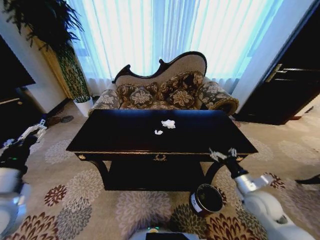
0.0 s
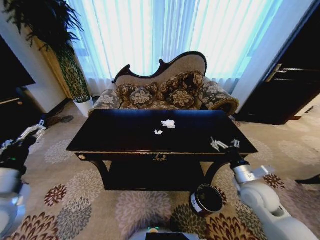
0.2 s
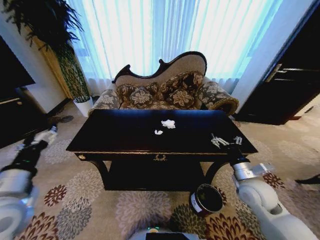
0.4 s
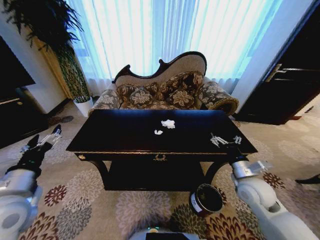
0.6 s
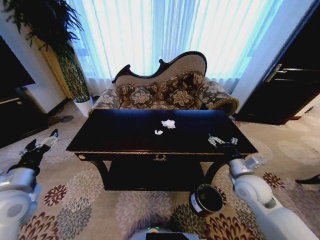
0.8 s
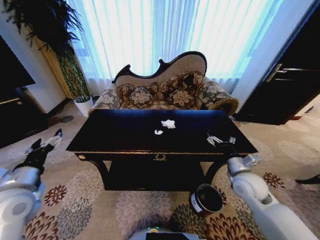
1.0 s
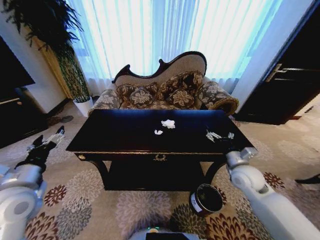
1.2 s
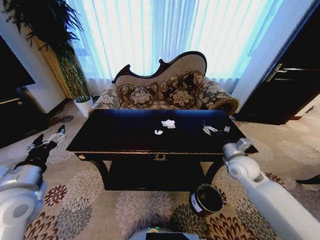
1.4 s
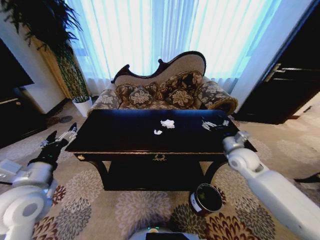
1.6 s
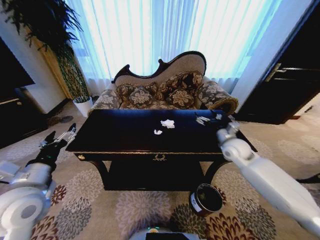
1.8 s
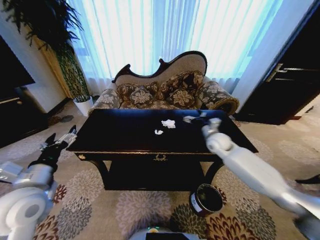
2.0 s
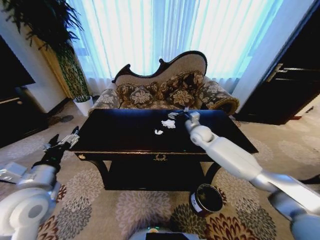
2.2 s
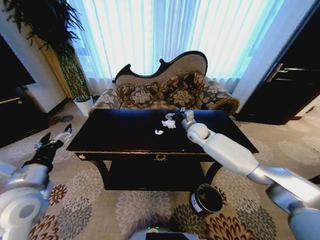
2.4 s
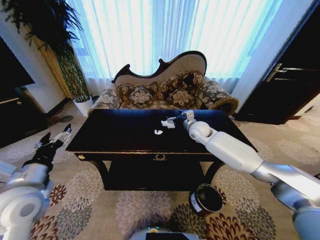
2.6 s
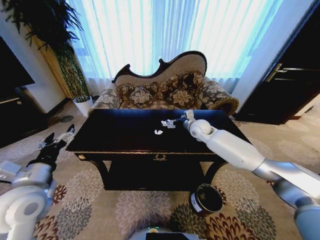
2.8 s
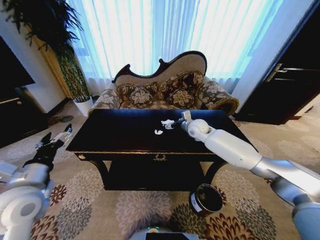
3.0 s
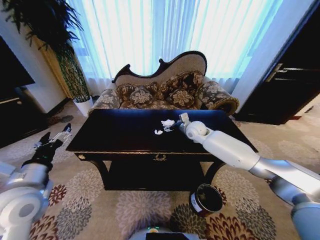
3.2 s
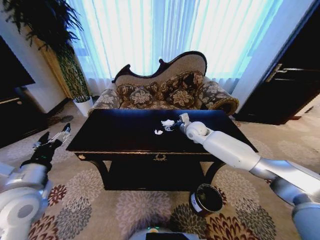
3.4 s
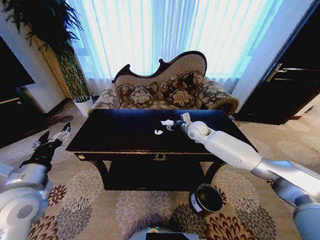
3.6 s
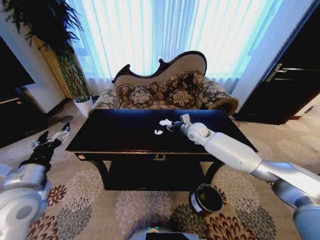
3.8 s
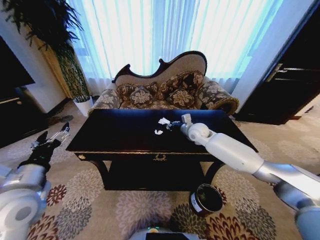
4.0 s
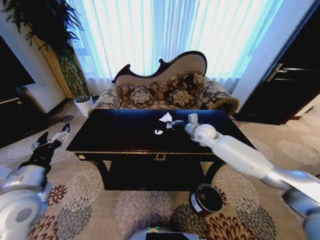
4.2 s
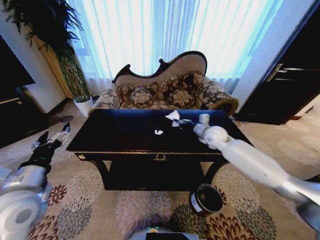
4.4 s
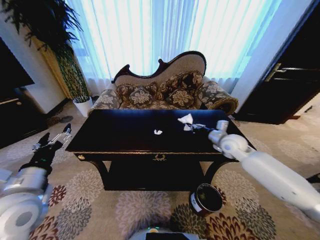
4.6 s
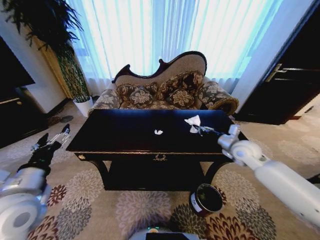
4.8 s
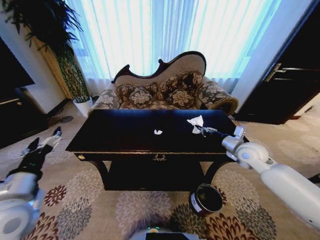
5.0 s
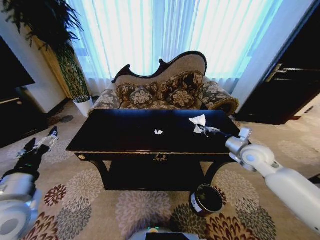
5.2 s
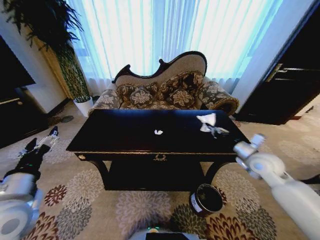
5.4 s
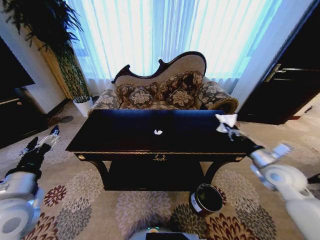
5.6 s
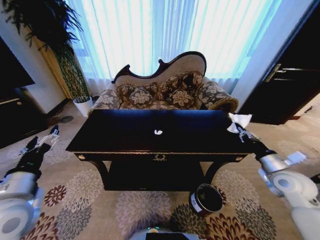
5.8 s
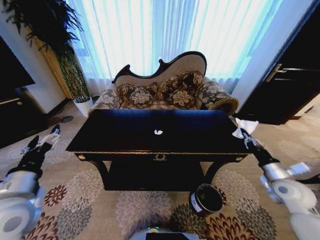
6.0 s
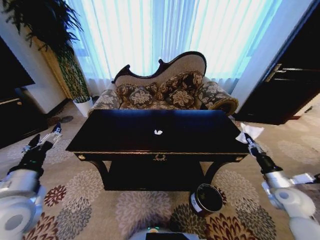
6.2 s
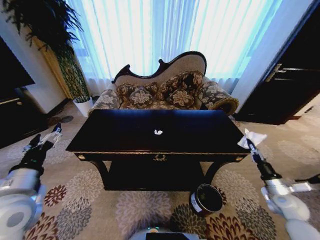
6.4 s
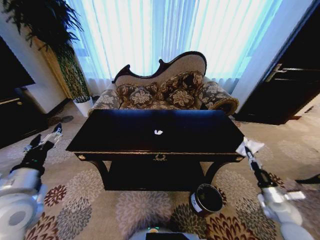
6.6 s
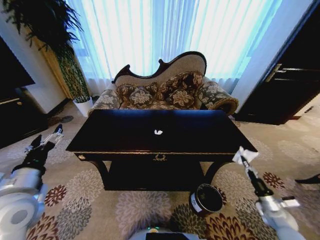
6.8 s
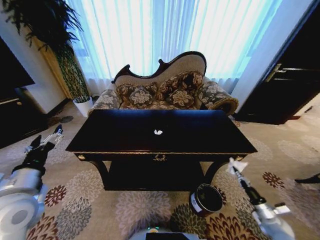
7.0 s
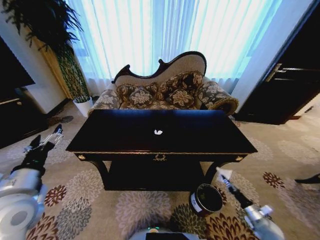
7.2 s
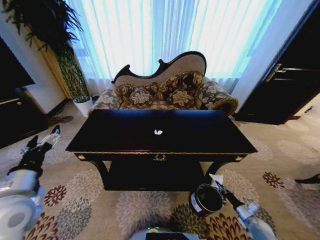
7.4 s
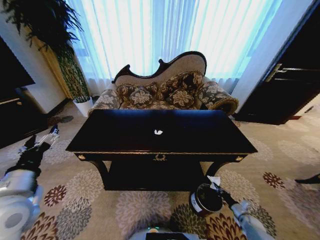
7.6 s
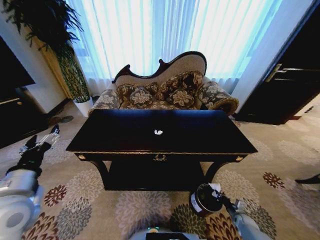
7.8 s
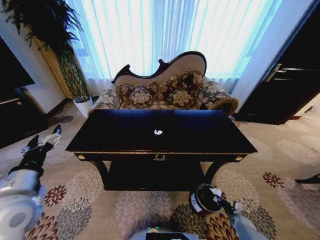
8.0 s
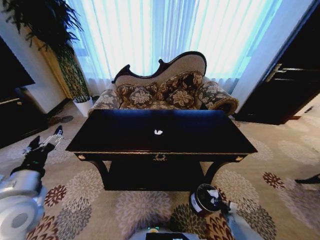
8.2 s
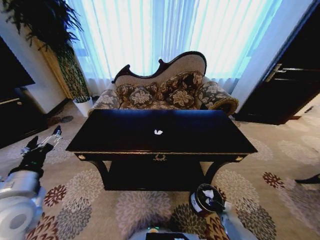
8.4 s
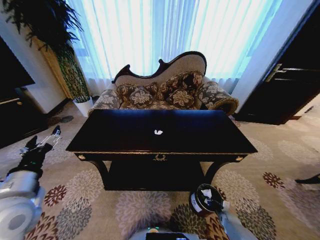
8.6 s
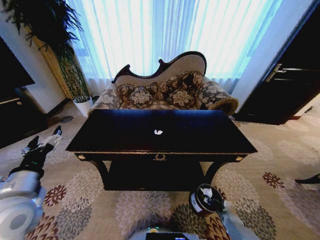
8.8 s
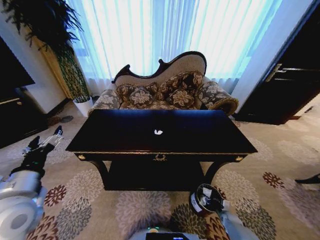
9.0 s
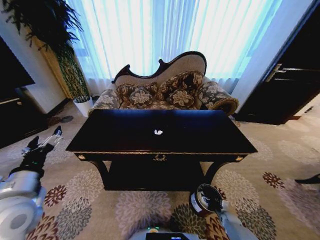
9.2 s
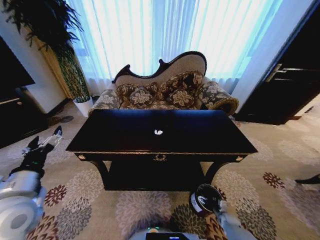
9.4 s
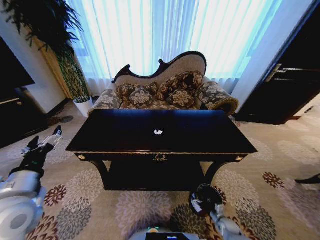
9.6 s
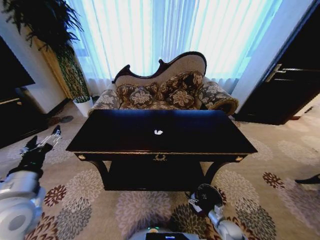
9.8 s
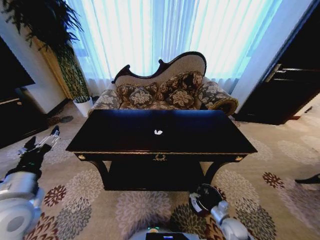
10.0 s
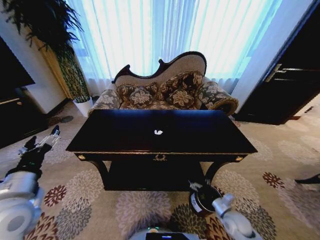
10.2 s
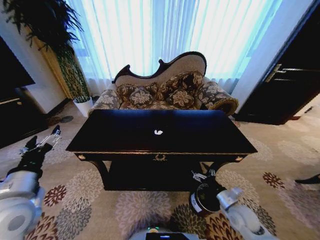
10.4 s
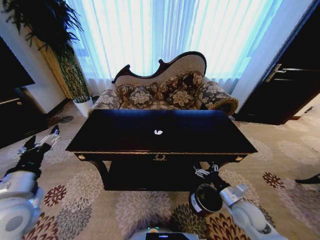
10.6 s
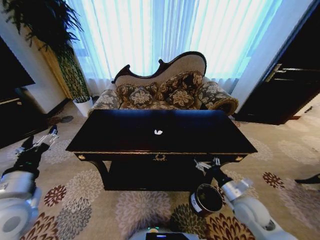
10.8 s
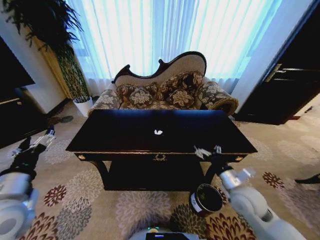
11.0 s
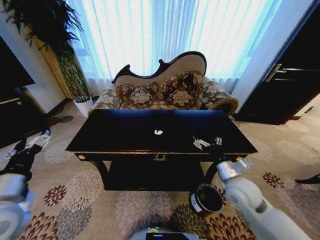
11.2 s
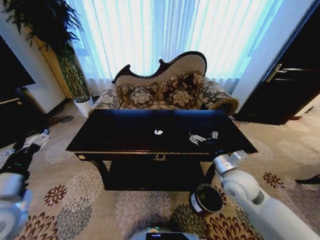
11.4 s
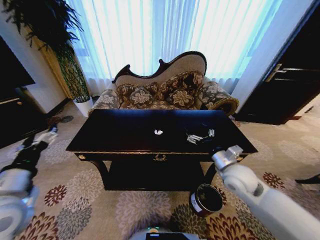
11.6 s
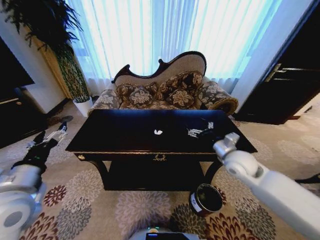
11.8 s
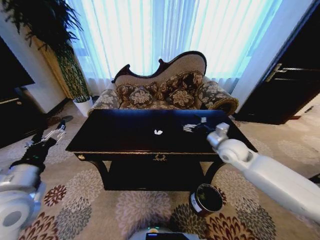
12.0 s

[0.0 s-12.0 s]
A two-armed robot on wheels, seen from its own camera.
Task of the whole recording: Move to the front of the table and place the trash on the table into the trash bin.
0.0 to 1.6 s: The right gripper heads forward and upward, covering about 15 cm, while the left gripper shifts by approximately 5 cm.
1.6 to 3.0 s: The right gripper is displaced forward and to the left by approximately 20 cm.
3.0 to 4.4 s: The right gripper goes some 10 cm to the right and backward, and closes up.
4.4 to 6.0 s: The right gripper heads backward and to the right, covering approximately 30 cm.
6.0 to 7.6 s: The right gripper heads downward, covering approximately 35 cm.
7.6 to 9.0 s: The right gripper is displaced to the left by about 5 cm, and opens its fingers.
9.0 to 10.4 s: The right gripper heads upward and to the left, covering roughly 25 cm, and opens up.
10.4 to 12.0 s: The right gripper heads upward and forward, covering about 30 cm.

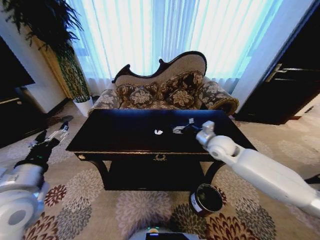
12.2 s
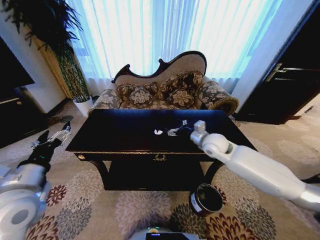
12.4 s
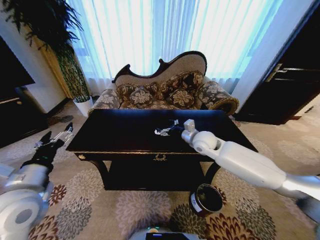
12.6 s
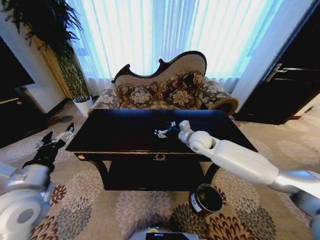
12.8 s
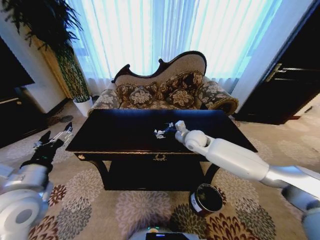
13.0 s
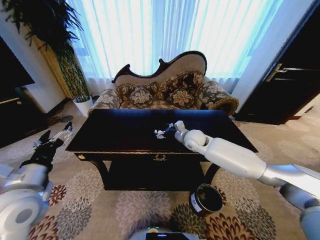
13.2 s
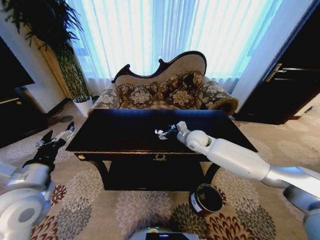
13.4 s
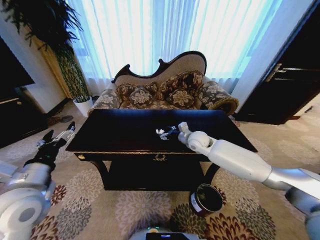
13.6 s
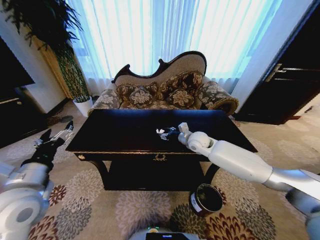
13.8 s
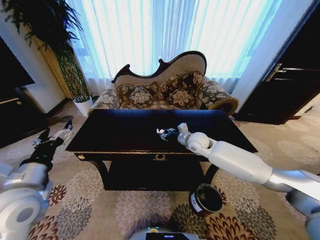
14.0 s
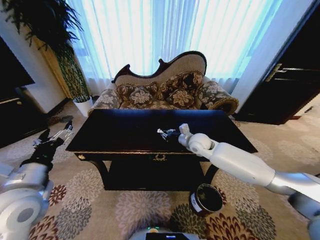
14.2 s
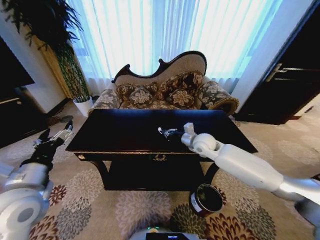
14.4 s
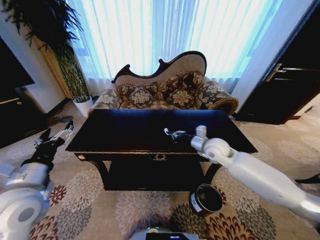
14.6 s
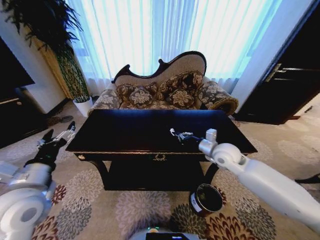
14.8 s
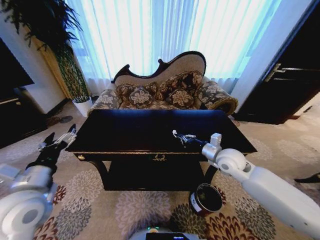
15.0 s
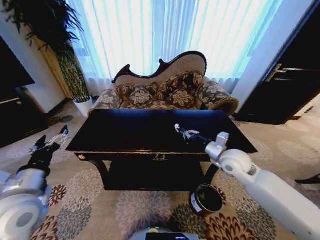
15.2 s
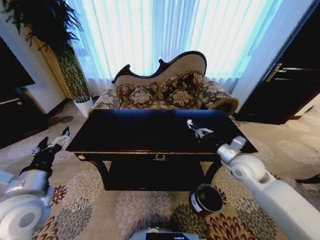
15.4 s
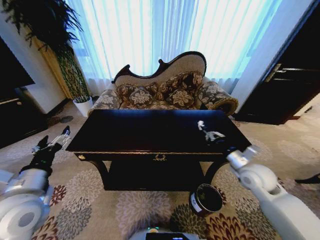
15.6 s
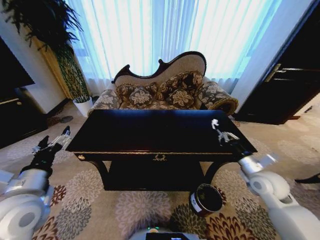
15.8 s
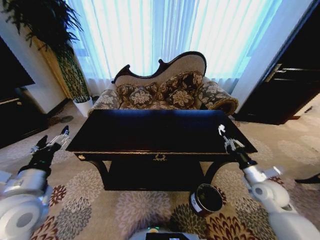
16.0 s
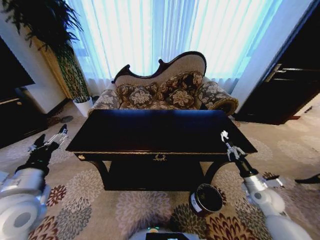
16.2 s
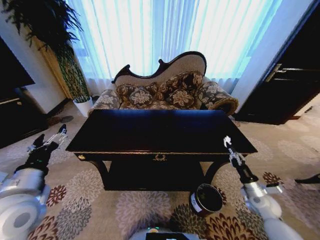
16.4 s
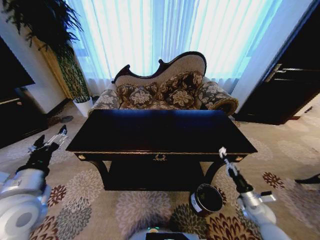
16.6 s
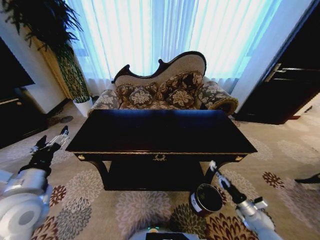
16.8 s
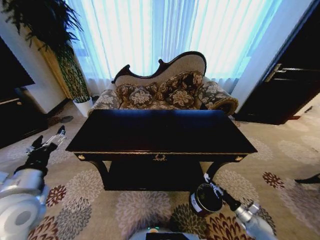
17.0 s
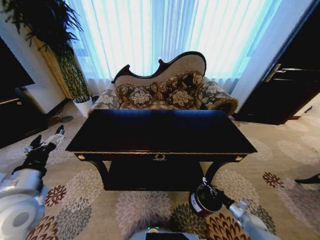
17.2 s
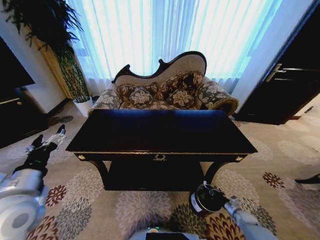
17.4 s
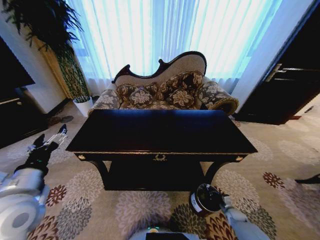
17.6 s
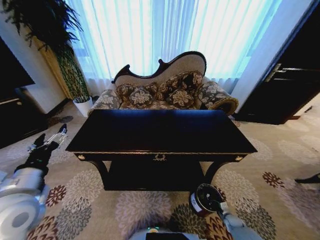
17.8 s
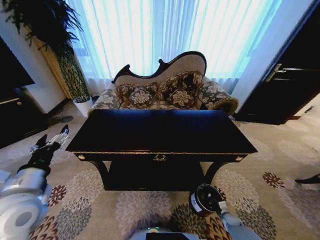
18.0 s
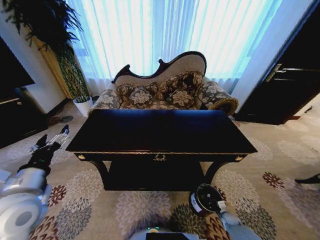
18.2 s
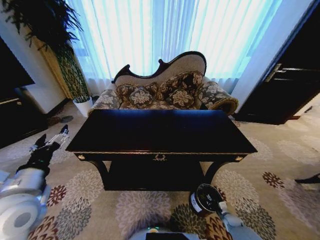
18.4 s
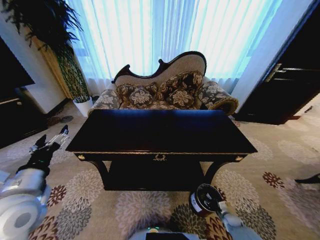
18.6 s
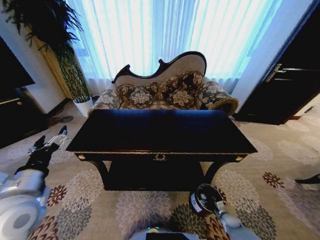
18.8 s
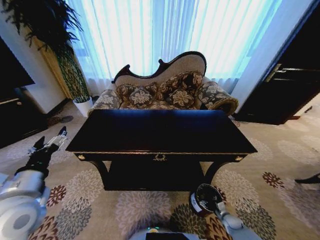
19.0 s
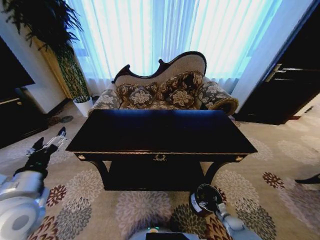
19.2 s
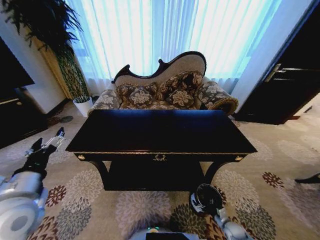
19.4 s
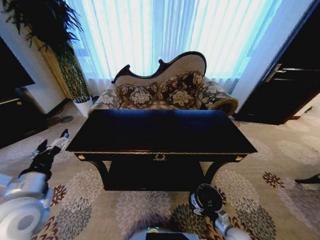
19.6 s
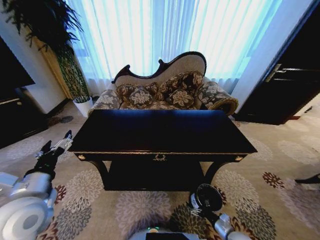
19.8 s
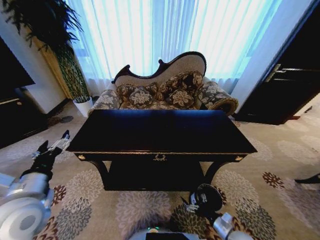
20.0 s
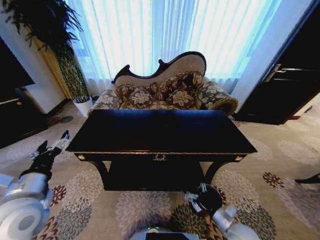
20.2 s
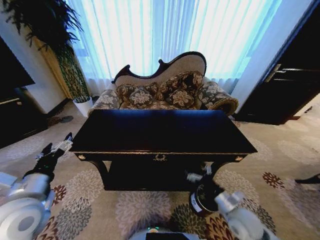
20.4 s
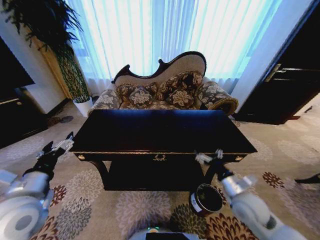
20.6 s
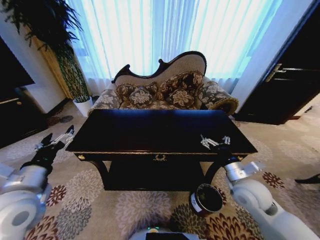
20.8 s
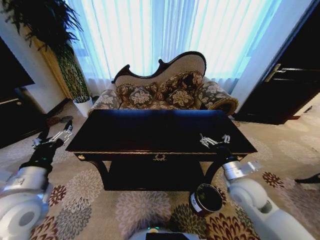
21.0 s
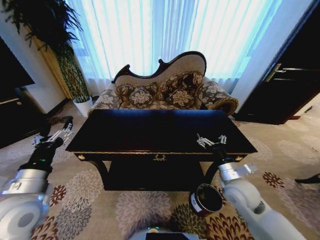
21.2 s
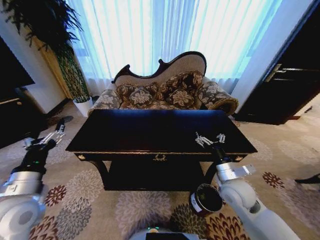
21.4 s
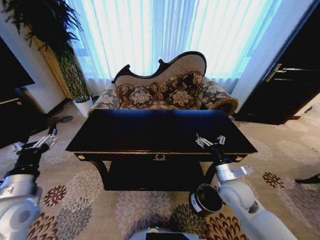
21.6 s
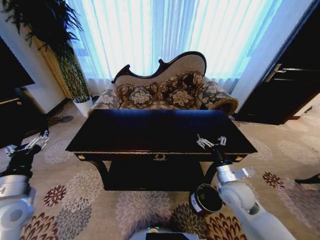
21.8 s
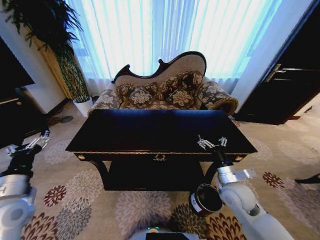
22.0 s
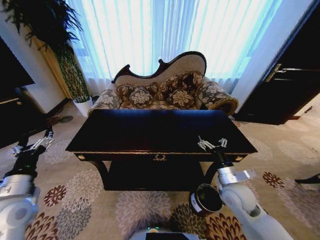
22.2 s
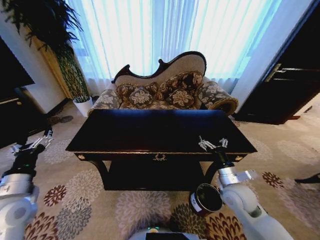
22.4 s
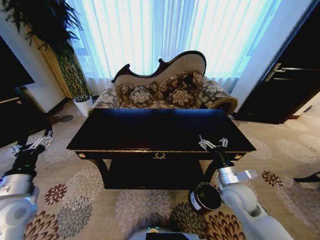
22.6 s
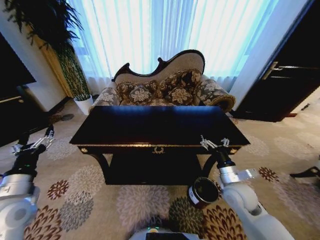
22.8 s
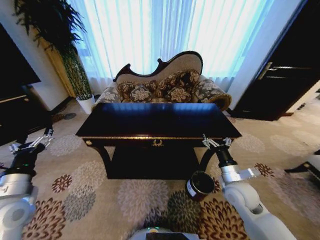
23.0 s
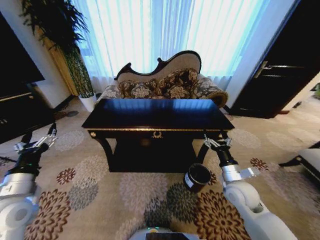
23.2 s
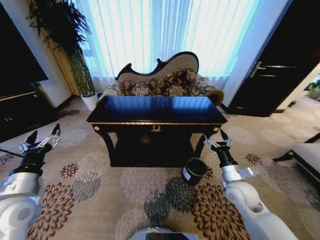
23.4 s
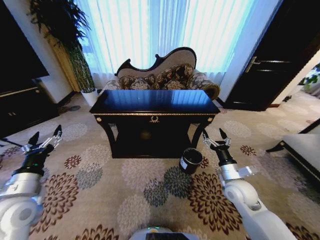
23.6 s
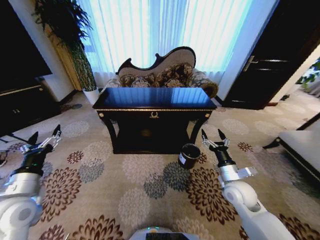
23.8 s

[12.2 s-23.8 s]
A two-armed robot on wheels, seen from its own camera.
Task of the whole recording: Move to the front of the table and place the trash on the table into the trash bin.
12.2 to 13.6 s: The right gripper is displaced to the left and forward by approximately 10 cm.
13.6 to 15.0 s: The right gripper goes approximately 15 cm backward and to the right, and closes up.
15.0 to 16.6 s: The right gripper is displaced downward, to the right and backward by some 30 cm.
16.6 to 18.0 s: The right gripper is displaced downward by approximately 20 cm.
18.0 to 19.4 s: The right gripper ends up approximately 5 cm from where it was, and opens.
19.4 to 21.0 s: The right gripper goes roughly 35 cm upward.
21.0 to 22.4 s: The left gripper heads to the left, covering roughly 5 cm.
